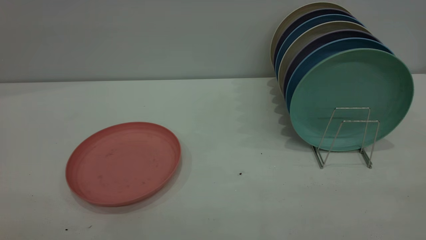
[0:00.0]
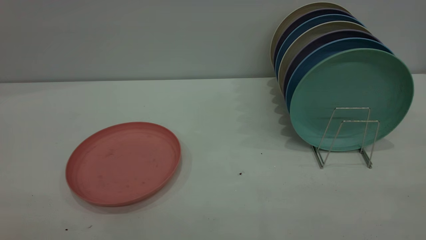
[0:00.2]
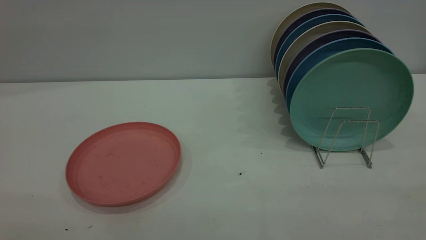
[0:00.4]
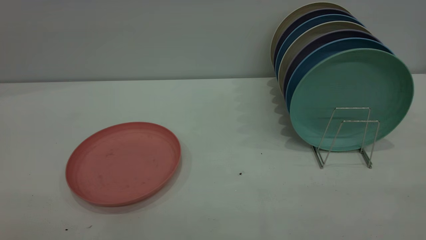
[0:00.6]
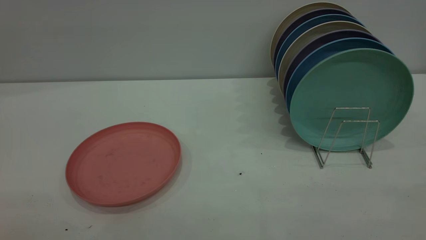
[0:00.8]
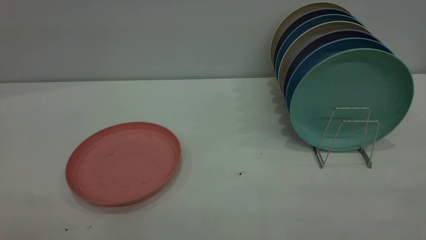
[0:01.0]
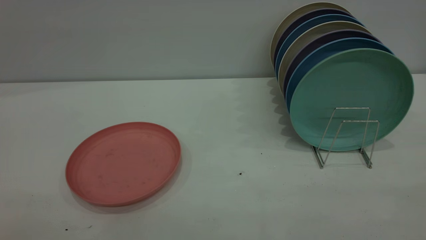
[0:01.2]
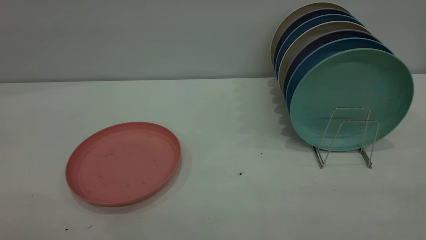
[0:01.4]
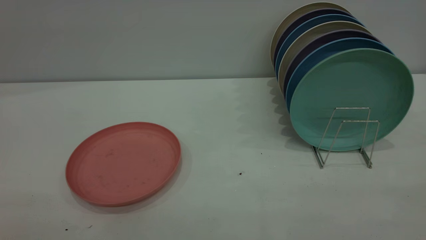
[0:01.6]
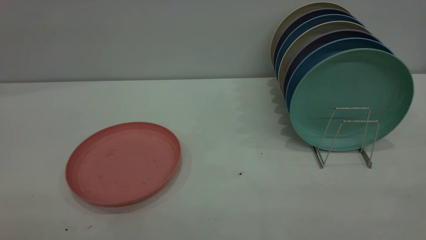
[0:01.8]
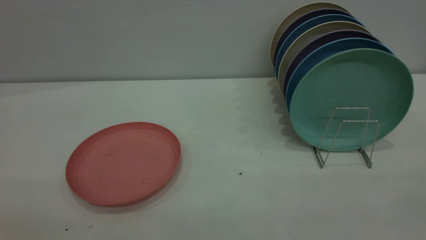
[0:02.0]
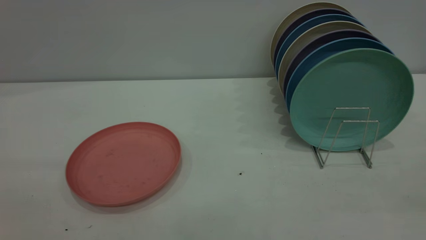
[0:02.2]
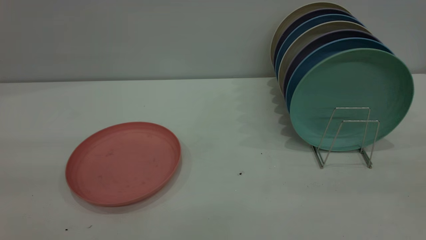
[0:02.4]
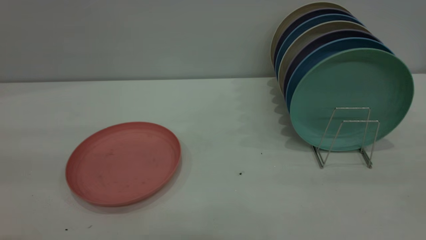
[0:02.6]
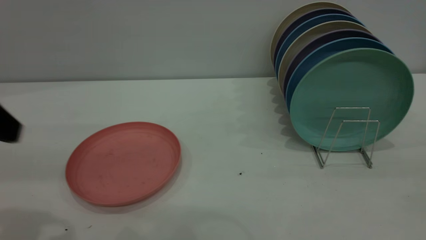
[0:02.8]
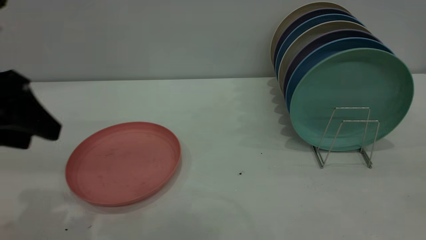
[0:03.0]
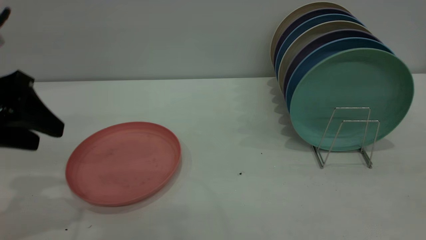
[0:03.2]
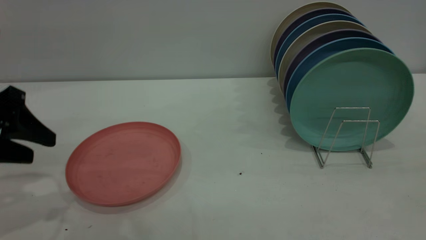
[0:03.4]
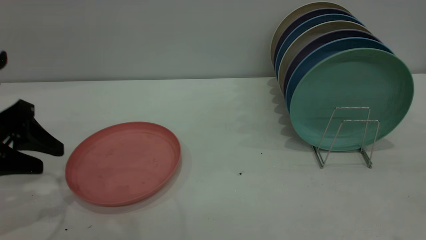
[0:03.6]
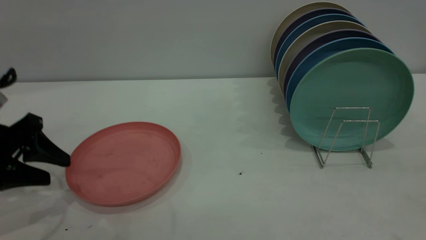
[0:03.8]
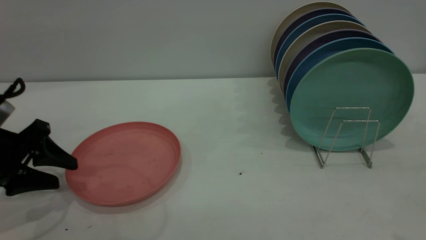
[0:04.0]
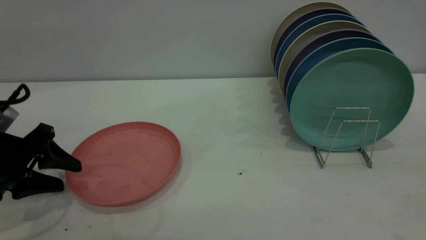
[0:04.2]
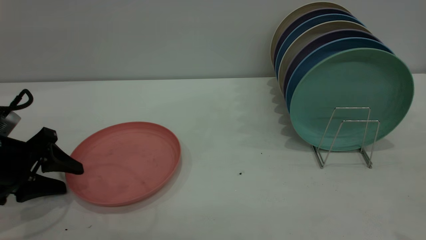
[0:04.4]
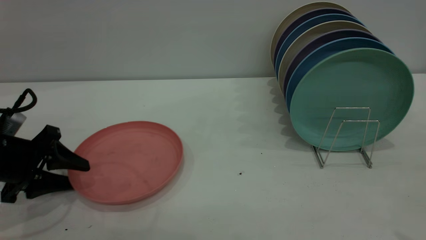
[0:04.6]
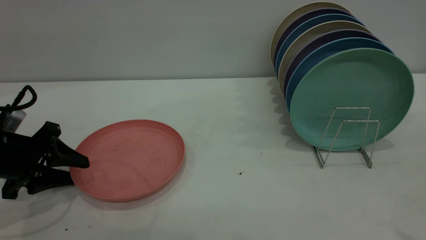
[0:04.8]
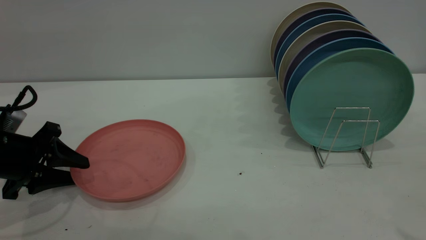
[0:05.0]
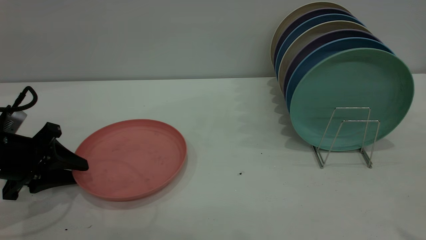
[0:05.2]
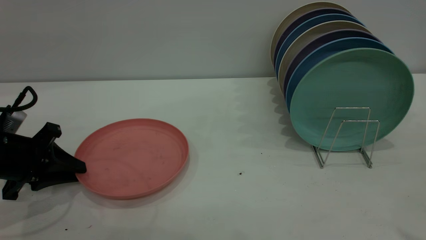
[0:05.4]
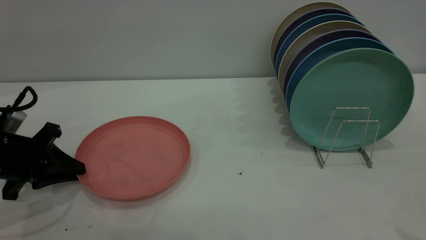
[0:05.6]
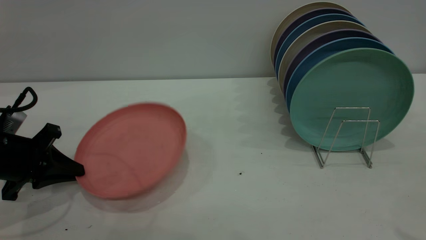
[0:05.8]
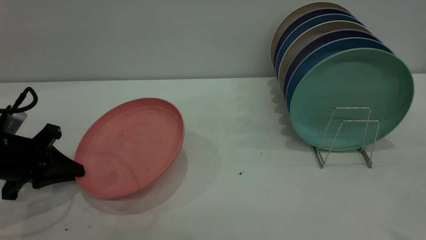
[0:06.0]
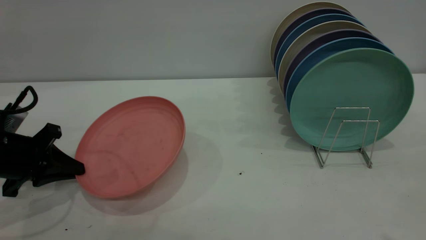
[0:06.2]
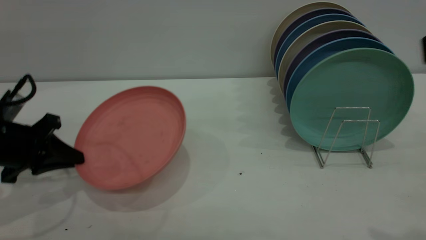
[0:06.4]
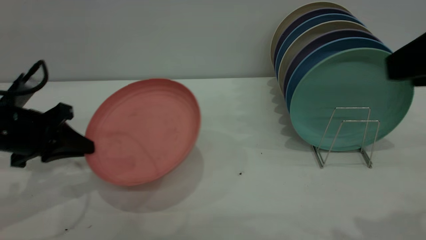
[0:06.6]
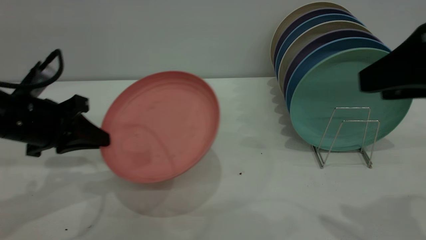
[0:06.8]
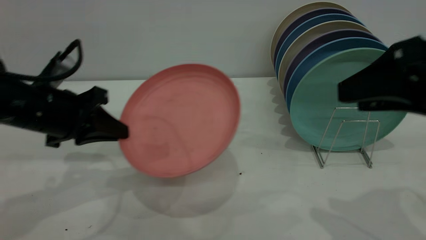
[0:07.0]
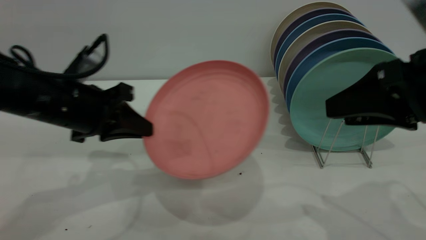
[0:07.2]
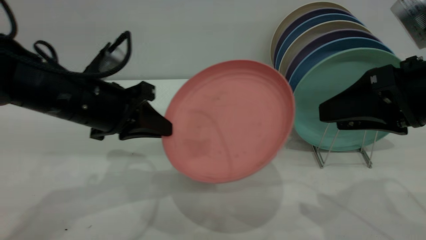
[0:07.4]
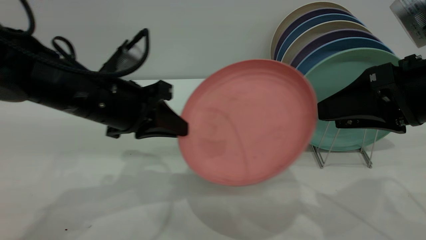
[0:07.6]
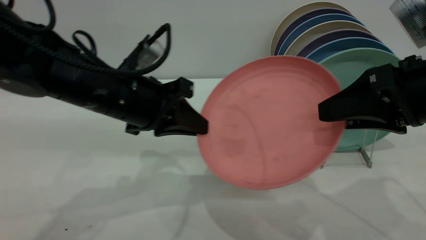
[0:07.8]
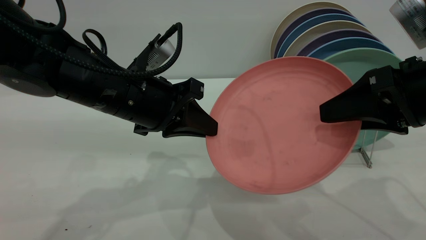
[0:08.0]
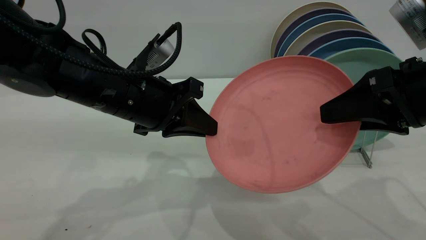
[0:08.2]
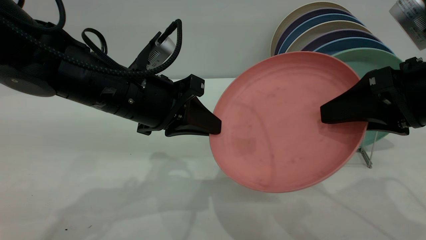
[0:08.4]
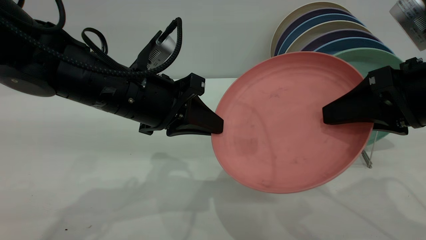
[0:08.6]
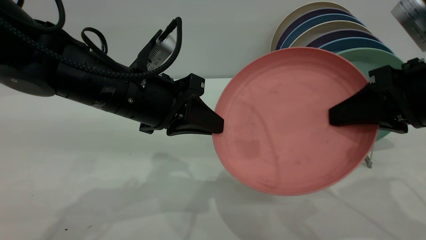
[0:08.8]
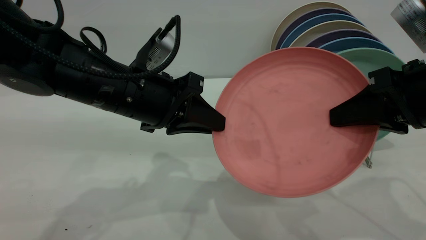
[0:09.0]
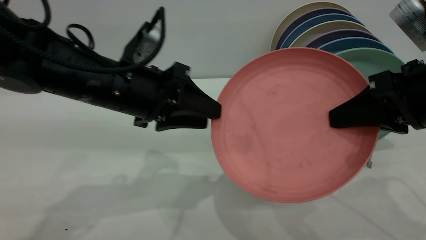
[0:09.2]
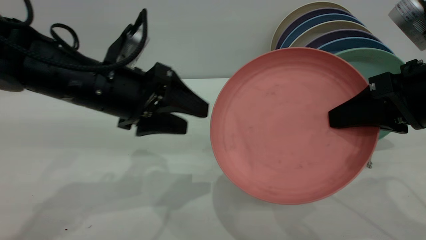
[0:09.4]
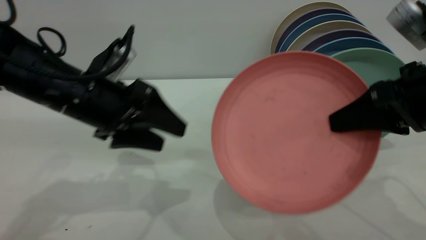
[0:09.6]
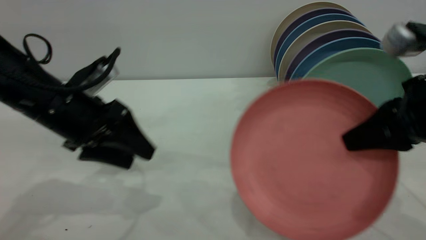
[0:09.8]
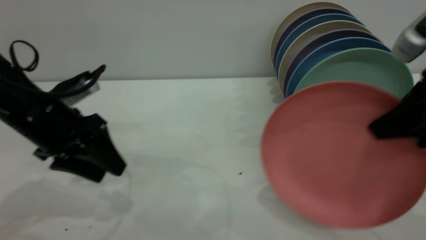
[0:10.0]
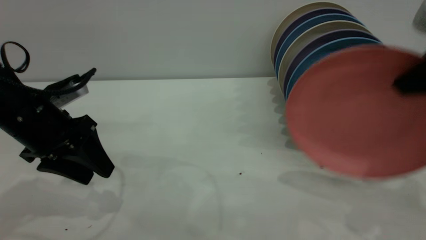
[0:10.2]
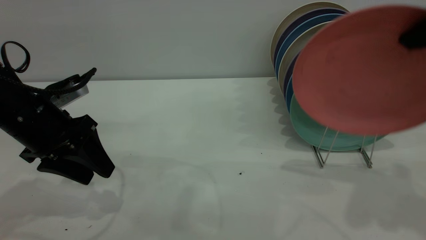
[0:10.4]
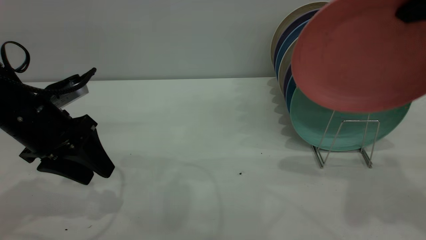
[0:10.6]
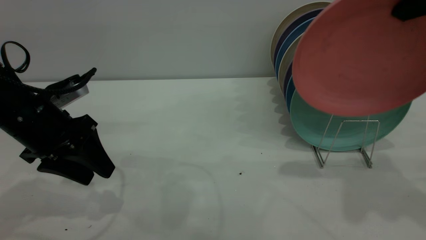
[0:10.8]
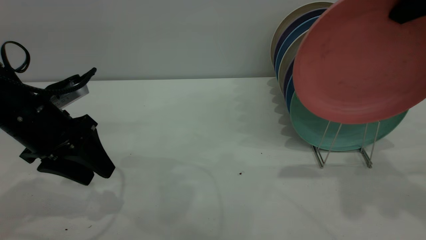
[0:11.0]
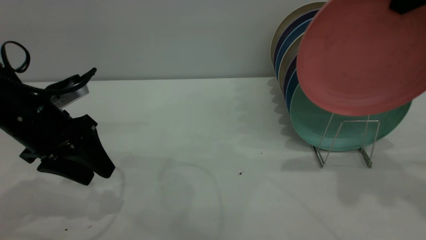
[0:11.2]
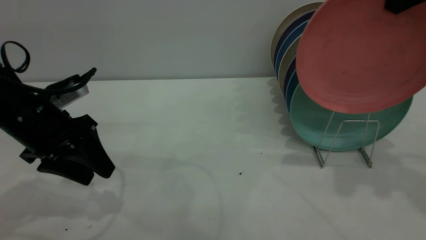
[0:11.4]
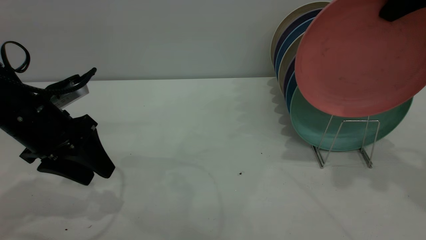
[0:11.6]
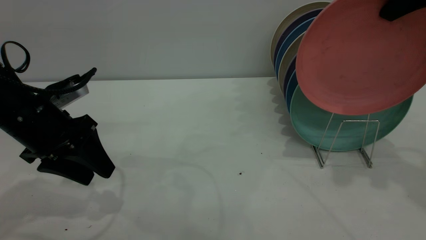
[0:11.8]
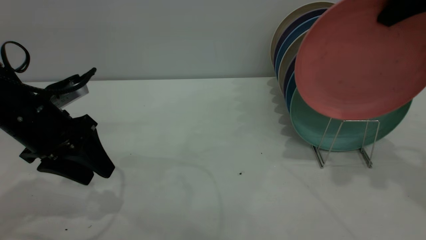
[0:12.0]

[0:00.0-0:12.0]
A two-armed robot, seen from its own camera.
Task of the whole recording: the left gripper grasp the pink plate, the left gripper pass the pink plate to the right gripper, and the right gripper place the pink plate on the plate rack.
Step, 0:00.0 to 0:05.6: Pick up the plate with the left gripper.
Step, 0:05.8 to 0:09.4: Pass the plate from the left gripper to the right gripper.
0:00.0 to 0:01.6: Neither gripper changes place.
0:01.6 to 0:03.0: The left gripper shifts some 25 cm forward.
0:03.0 to 0:04.4: The left gripper heads downward, covering some 15 cm.
0:04.4 to 0:06.0: The left gripper closes up.
0:06.0 to 0:07.6: The right gripper moves downward and forward, approximately 20 cm. Meanwhile the left gripper moves to the right and upward, approximately 20 cm.
0:07.6 to 0:09.0: The right gripper closes up.
0:09.0 to 0:10.4: The right gripper goes approximately 10 cm upward, while the left gripper travels to the left by some 15 cm, and opens.
0:10.4 to 0:12.0: The right gripper goes approximately 10 cm forward.

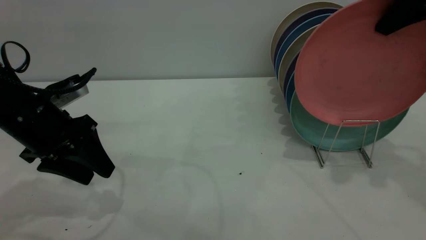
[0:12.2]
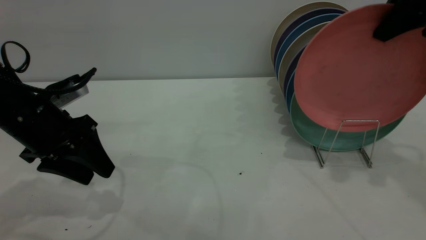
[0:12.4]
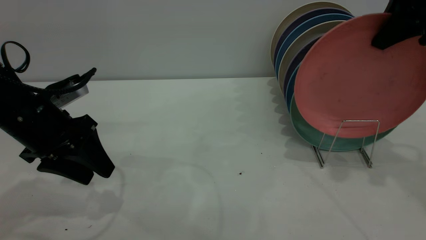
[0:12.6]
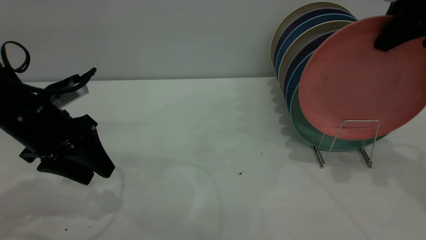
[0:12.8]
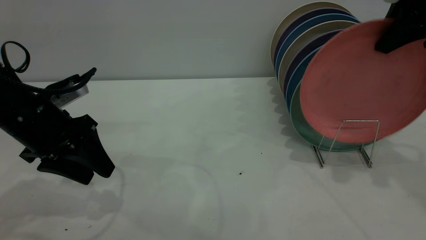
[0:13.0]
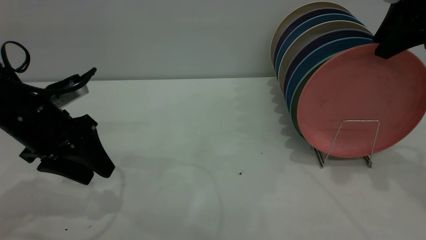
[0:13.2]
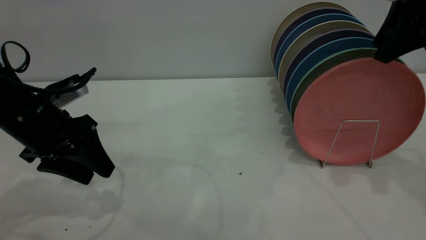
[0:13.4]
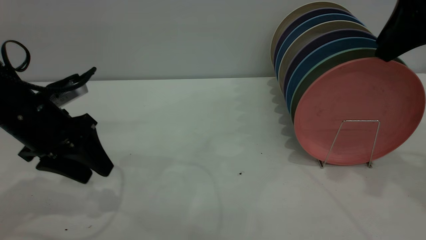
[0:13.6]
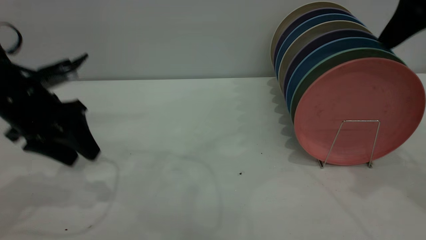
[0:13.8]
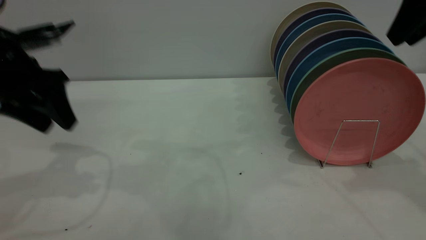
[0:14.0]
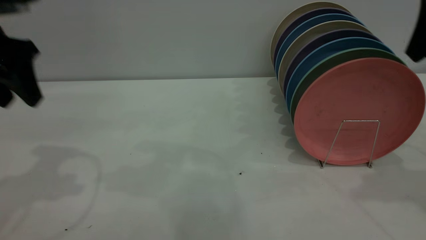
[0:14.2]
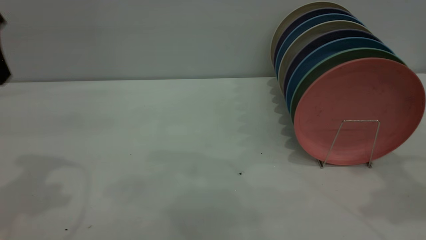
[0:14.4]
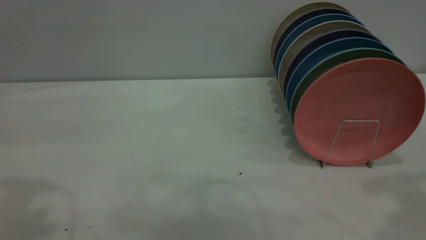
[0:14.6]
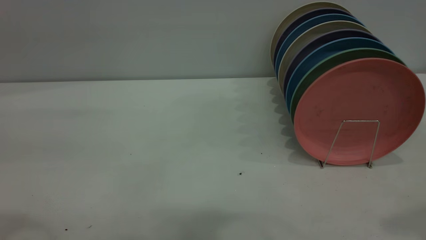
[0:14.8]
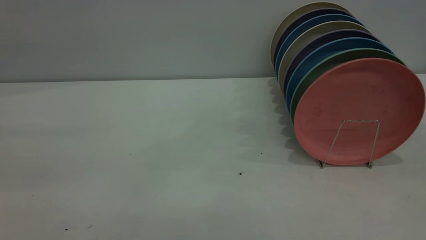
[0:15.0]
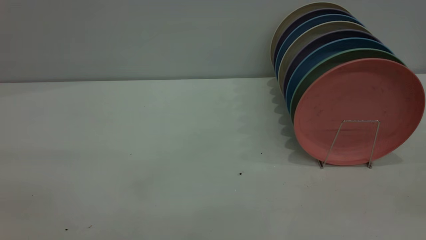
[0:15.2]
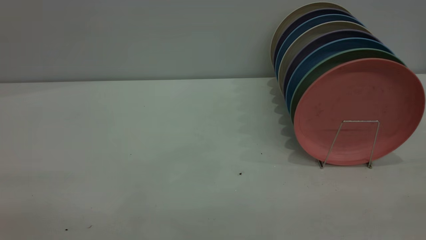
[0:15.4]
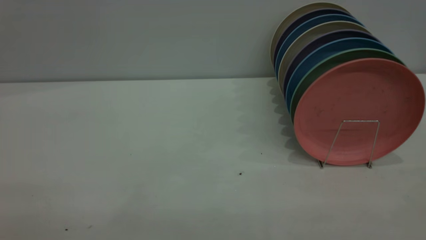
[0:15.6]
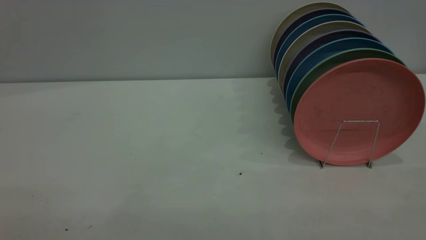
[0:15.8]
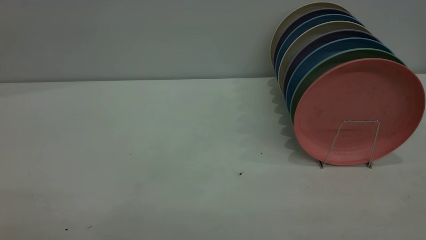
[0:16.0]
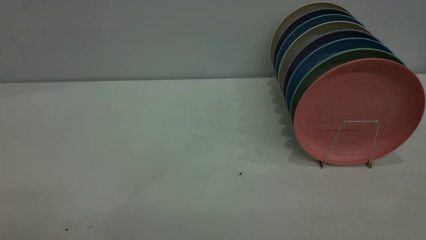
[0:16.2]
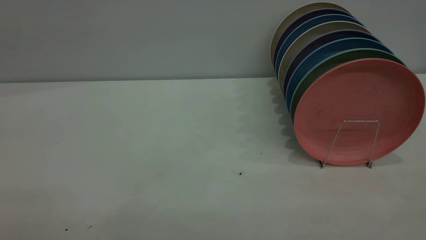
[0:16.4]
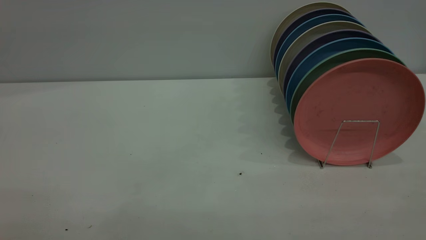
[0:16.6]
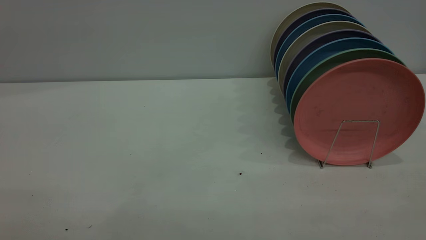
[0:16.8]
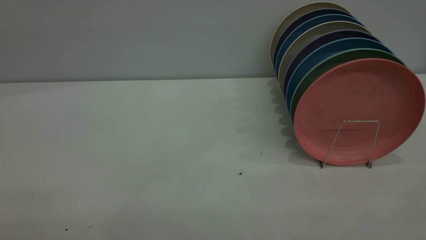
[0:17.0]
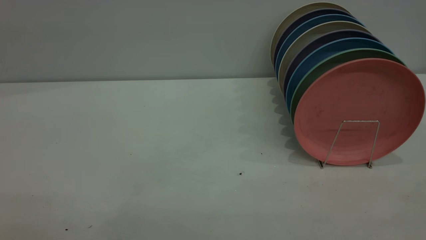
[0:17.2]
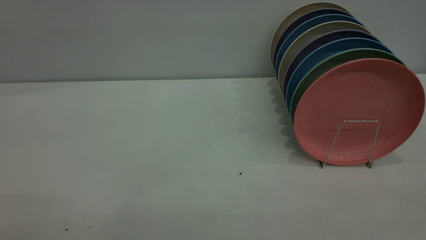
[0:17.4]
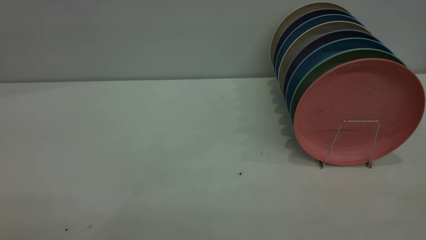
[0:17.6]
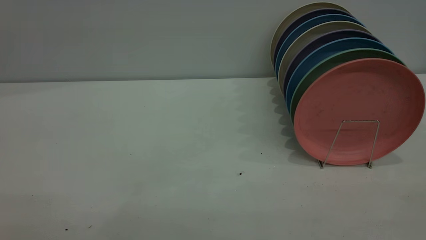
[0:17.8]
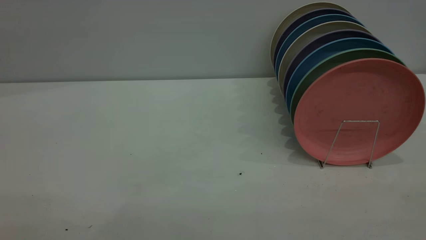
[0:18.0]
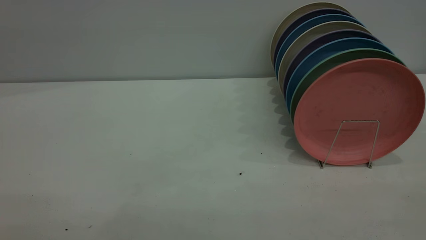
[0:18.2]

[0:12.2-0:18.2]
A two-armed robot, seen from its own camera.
Task of the whole recording: the left gripper grasp the pink plate, the left gripper pass the pink plate to the right gripper, and the right gripper place the pink plate on the plate rack.
0:12.2 to 0:13.8: The right gripper opens up.
0:13.8 to 0:15.2: The right gripper heads backward, covering about 30 cm. Meanwhile the left gripper travels backward and upward by approximately 35 cm.
